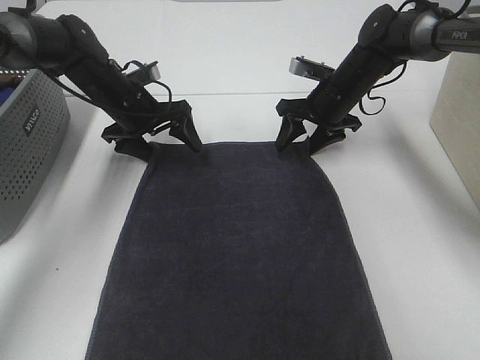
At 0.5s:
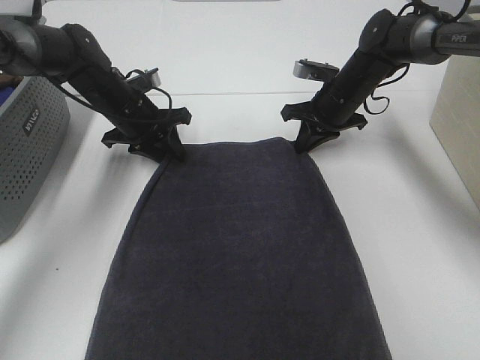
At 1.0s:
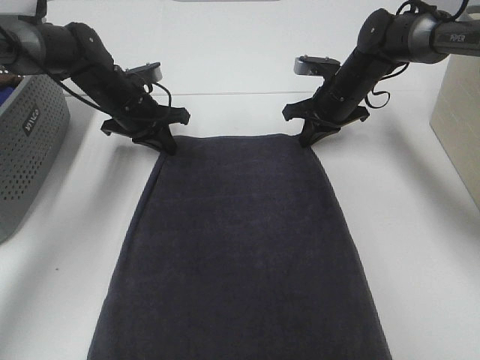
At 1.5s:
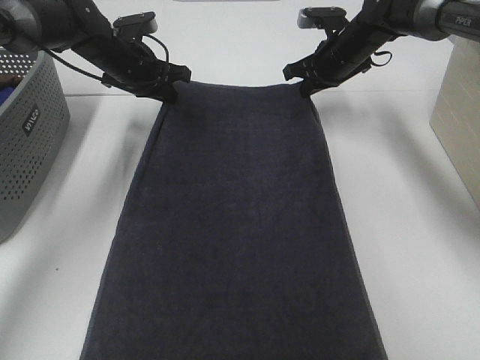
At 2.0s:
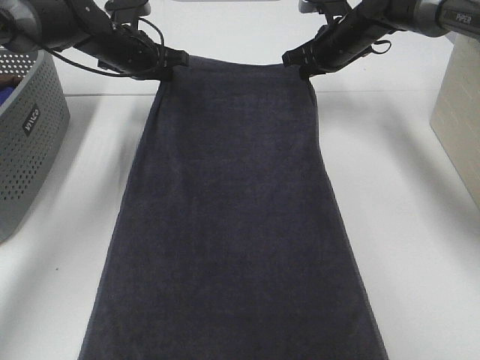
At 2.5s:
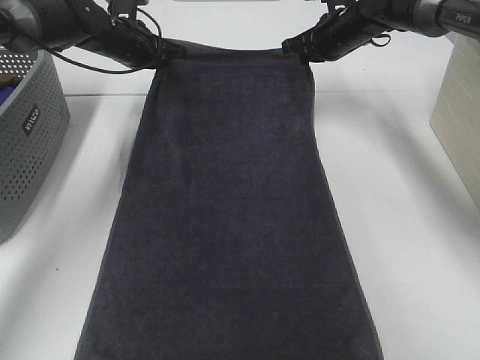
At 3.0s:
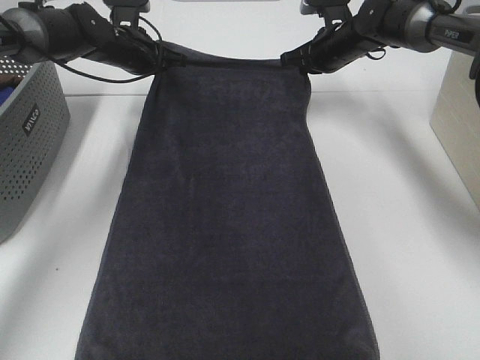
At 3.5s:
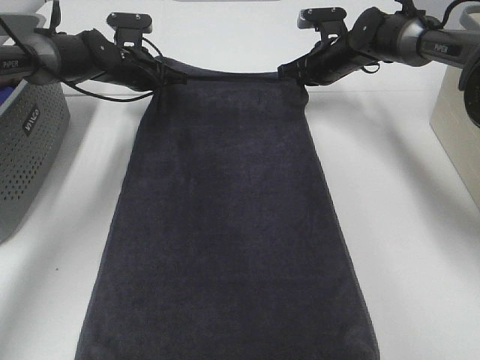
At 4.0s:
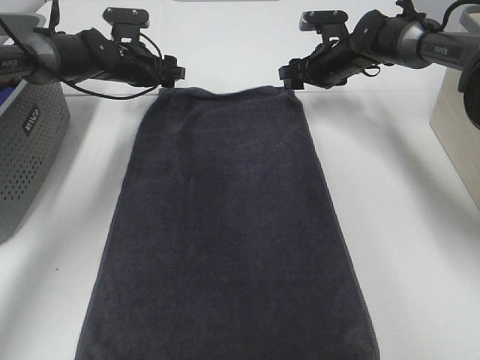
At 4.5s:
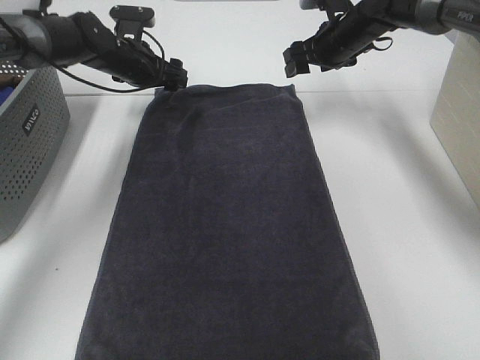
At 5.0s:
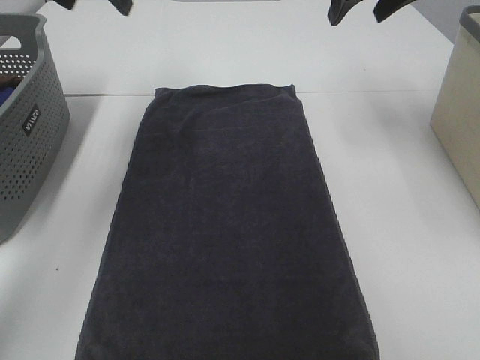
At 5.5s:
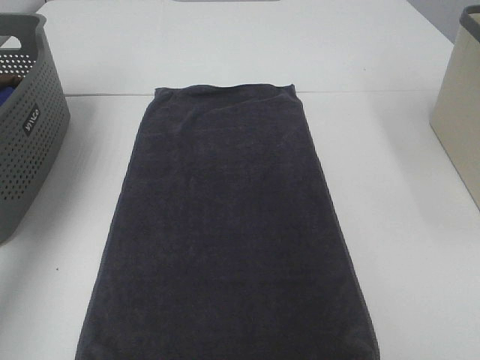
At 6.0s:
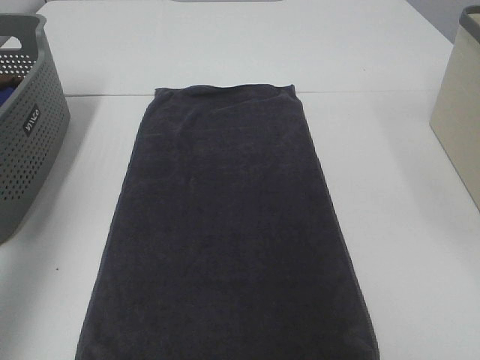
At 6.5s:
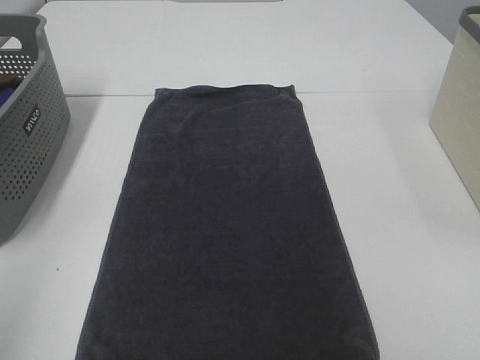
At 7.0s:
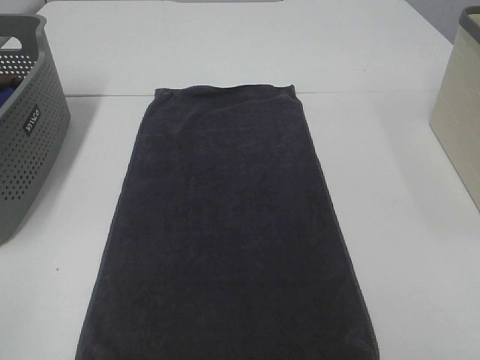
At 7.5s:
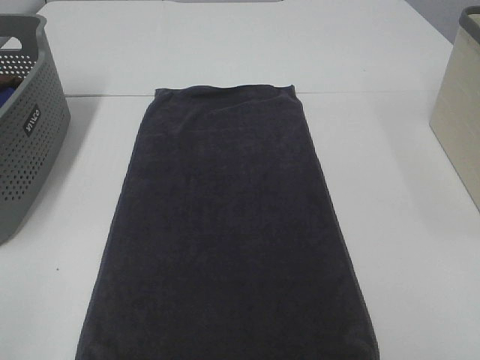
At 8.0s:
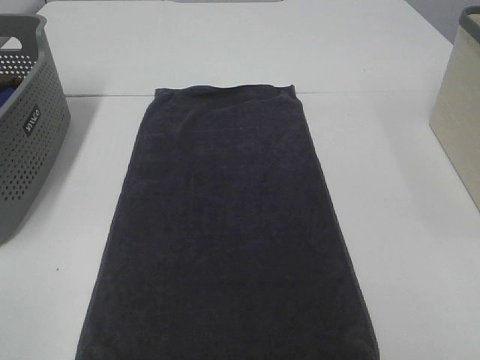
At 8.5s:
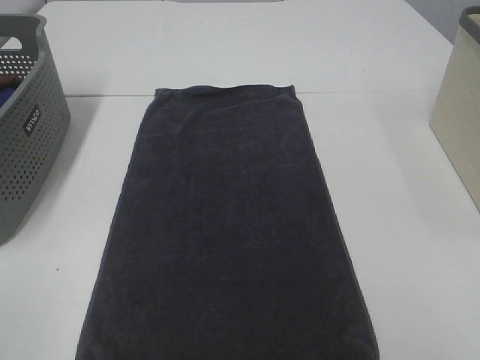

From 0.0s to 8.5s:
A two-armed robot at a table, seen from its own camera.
Task of the whole recording: Remove the towel and place it.
From 0.0s to 2.0s: The right gripper goes about 10 cm upward and forward, and closes up. Meanwhile the left gripper moves forward and upward, roughly 10 cm, and closes.
From 2.0s to 4.0s: The right gripper opens its fingers, while the left gripper opens its fingers.
From 4.0s to 6.5s: The two grippers go roughly 60 cm backward and upward.

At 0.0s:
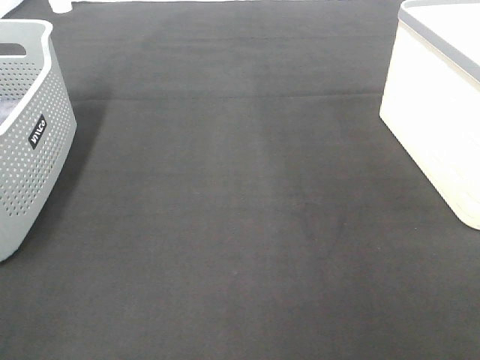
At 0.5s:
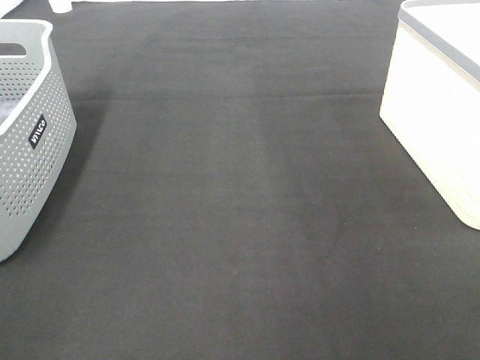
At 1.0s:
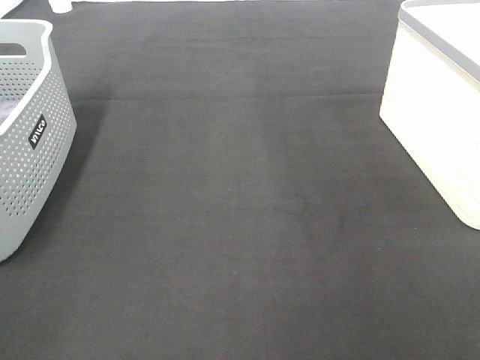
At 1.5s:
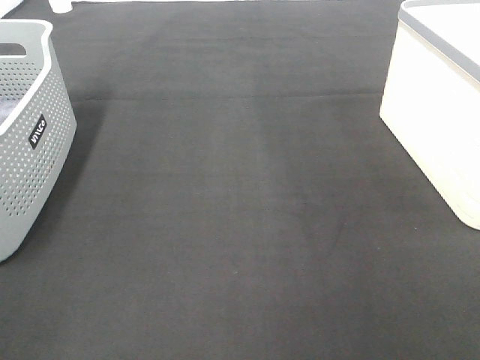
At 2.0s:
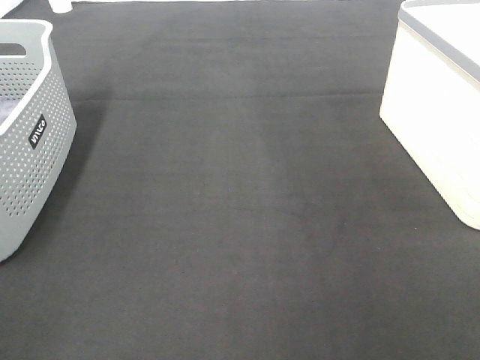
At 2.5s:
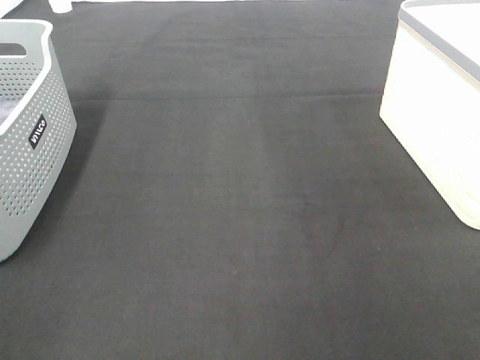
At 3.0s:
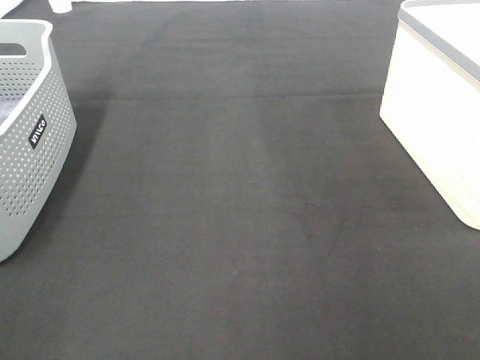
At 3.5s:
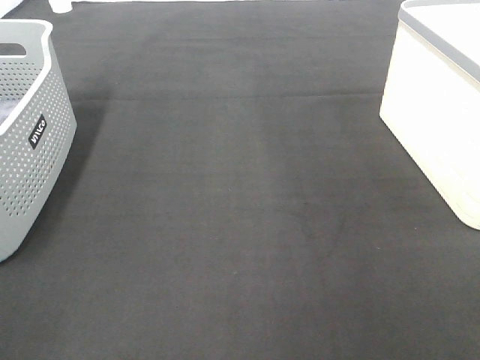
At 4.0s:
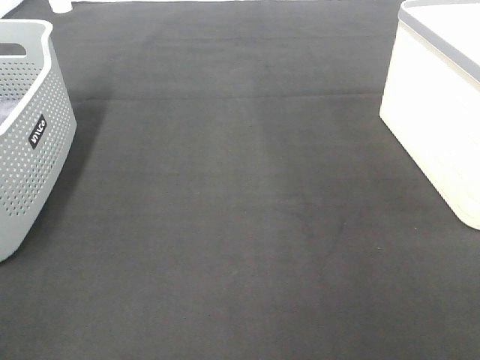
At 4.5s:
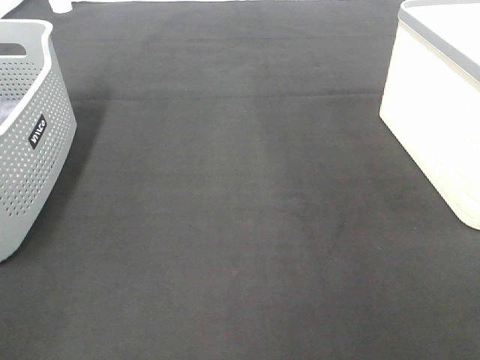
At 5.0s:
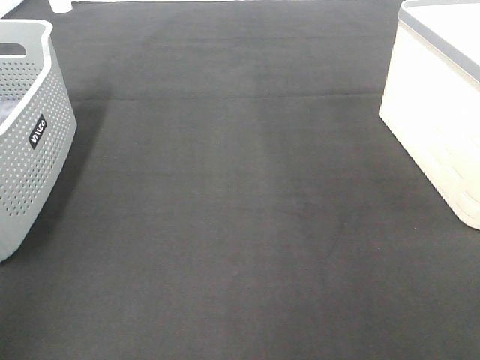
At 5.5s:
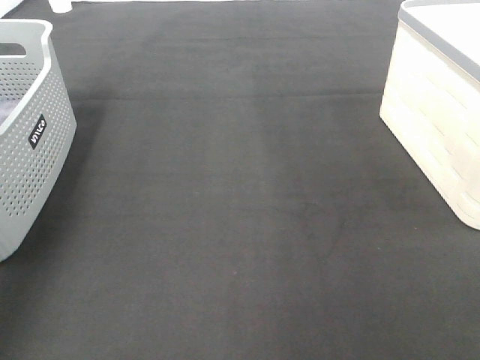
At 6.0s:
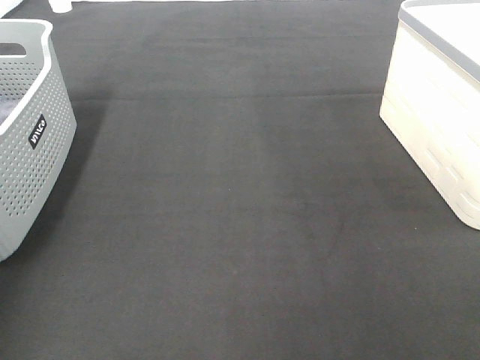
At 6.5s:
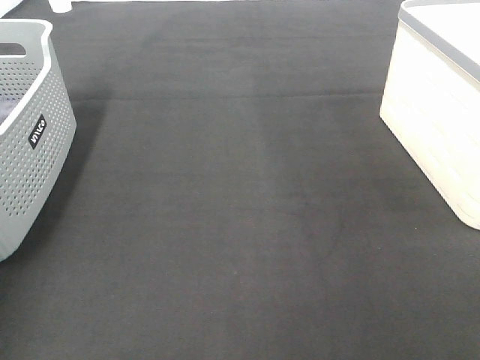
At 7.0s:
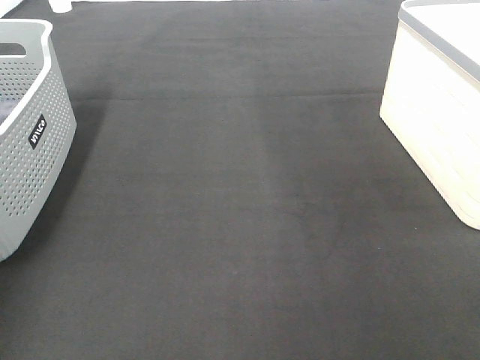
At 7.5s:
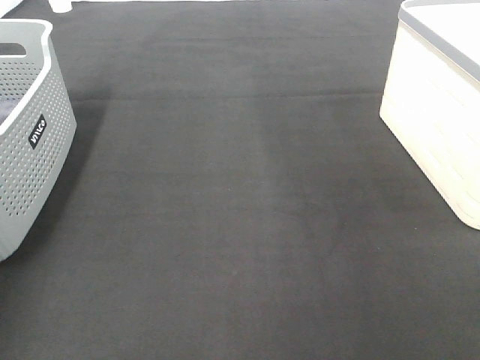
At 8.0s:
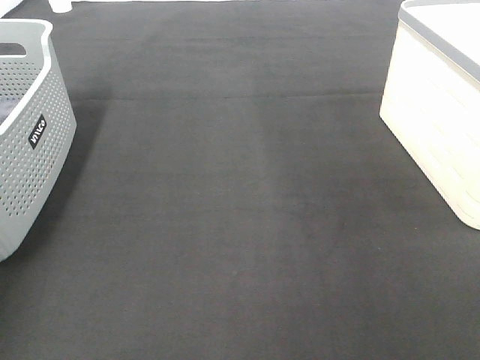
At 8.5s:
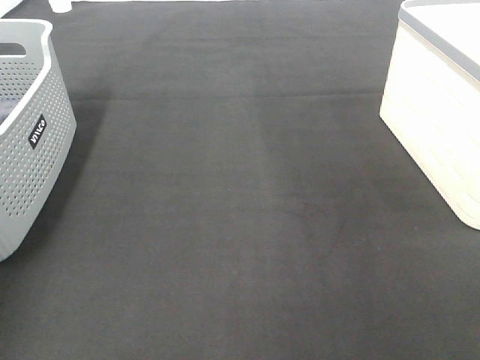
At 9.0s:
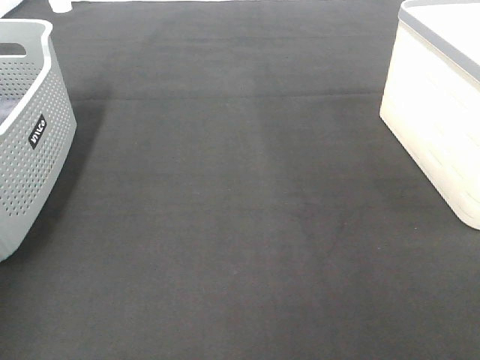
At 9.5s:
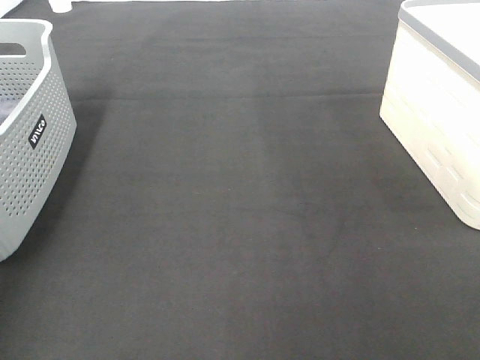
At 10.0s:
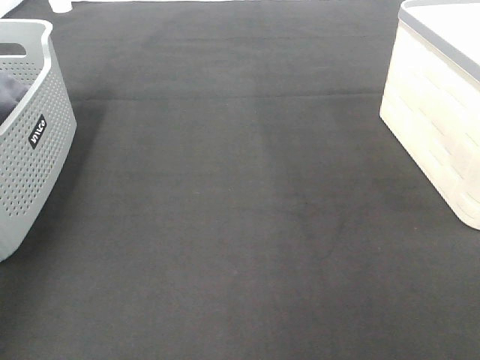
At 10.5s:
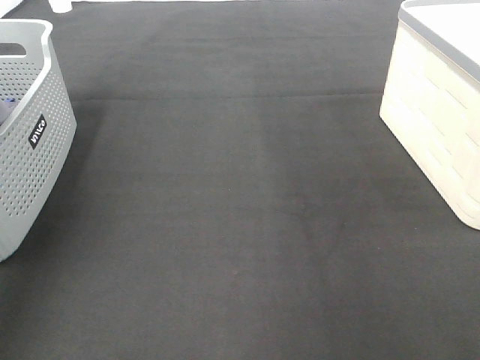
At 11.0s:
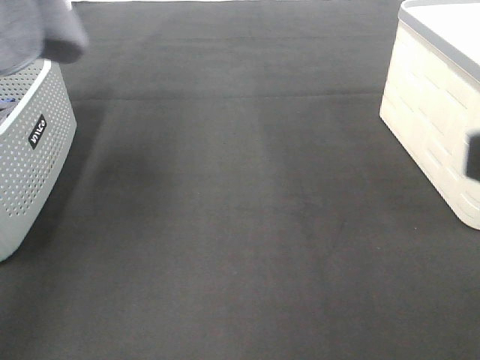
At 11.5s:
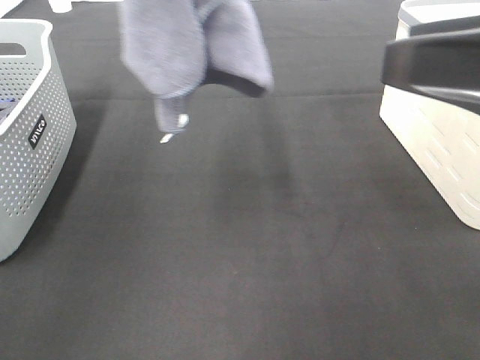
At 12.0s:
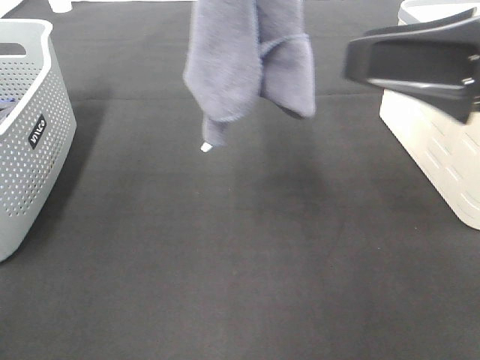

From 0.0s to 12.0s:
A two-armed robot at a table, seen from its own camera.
Task of the whole recording: Remove the towel and place it.
From 0.0s to 4.0s: Both grippers stay about where they are.
From 10.0s to 12.0s: The right gripper is displaced forward and to the left by roughly 20 cm, while the left gripper is displaced to the right by some 25 cm.

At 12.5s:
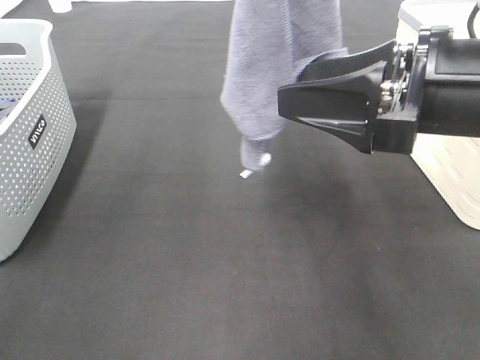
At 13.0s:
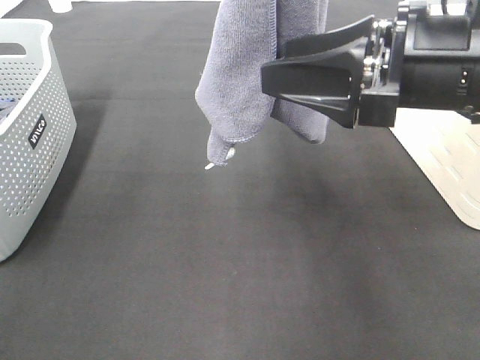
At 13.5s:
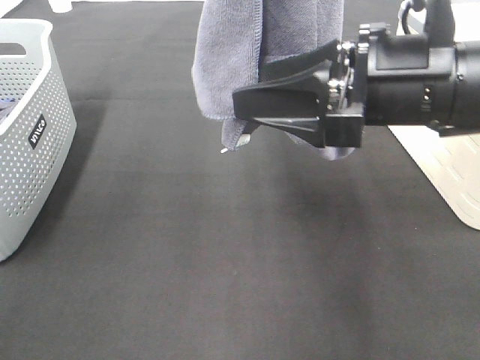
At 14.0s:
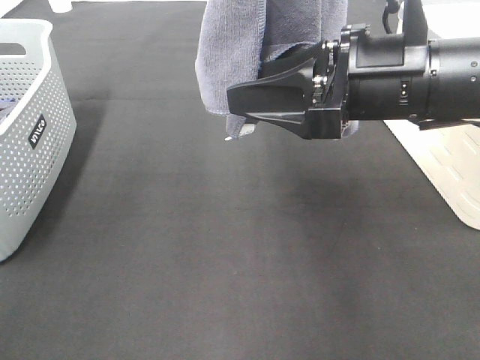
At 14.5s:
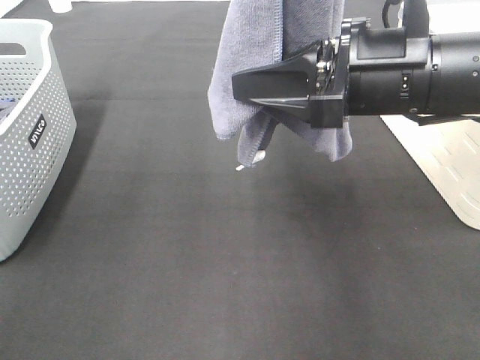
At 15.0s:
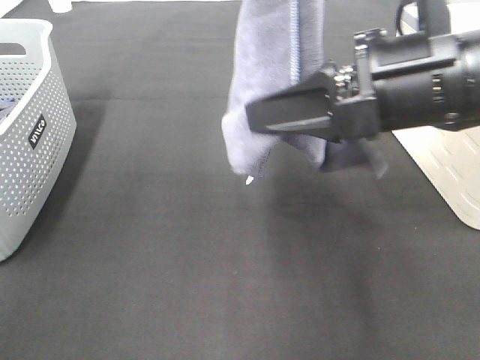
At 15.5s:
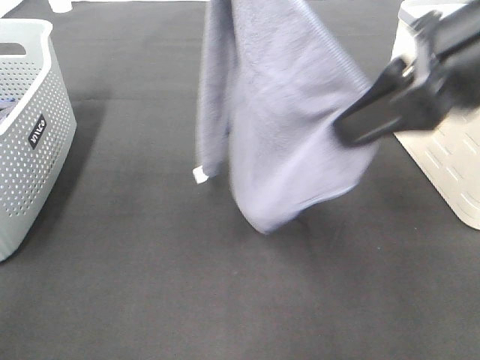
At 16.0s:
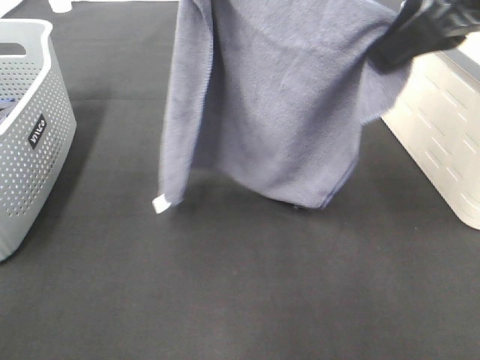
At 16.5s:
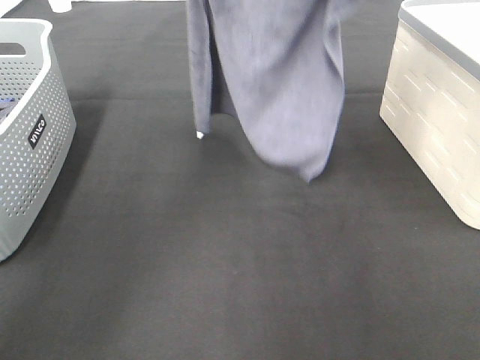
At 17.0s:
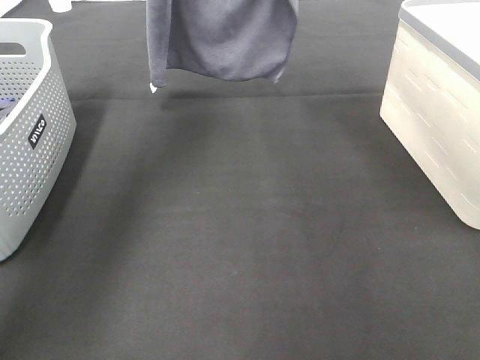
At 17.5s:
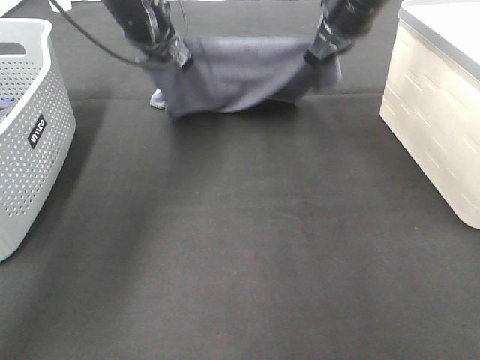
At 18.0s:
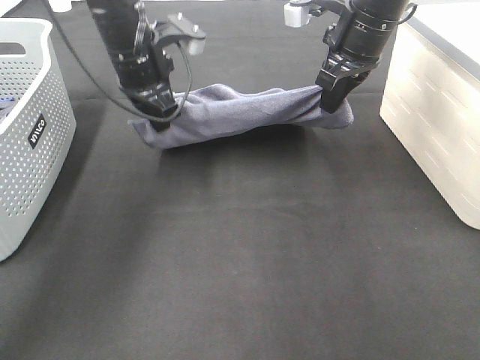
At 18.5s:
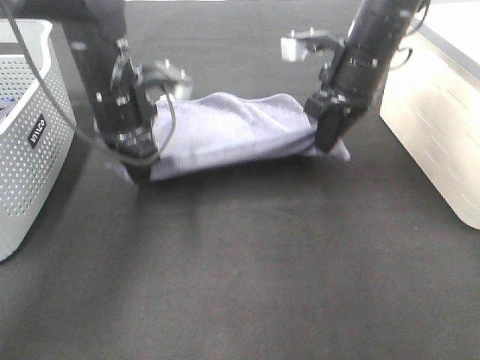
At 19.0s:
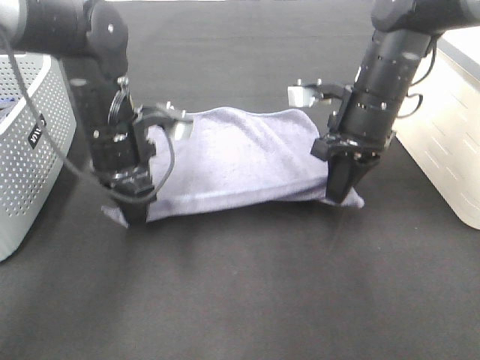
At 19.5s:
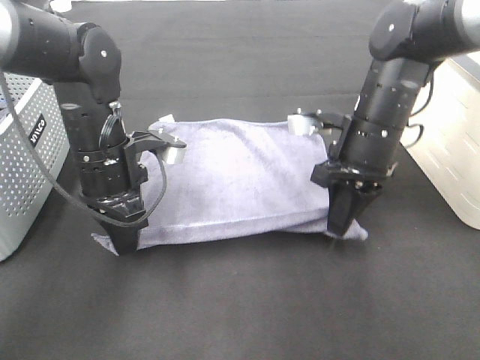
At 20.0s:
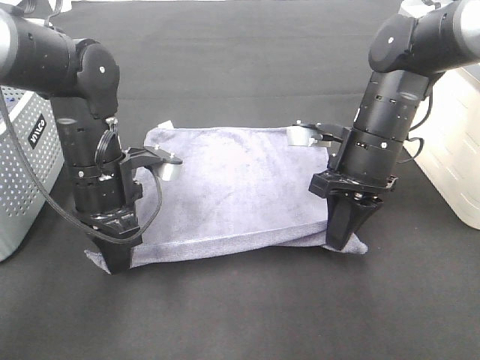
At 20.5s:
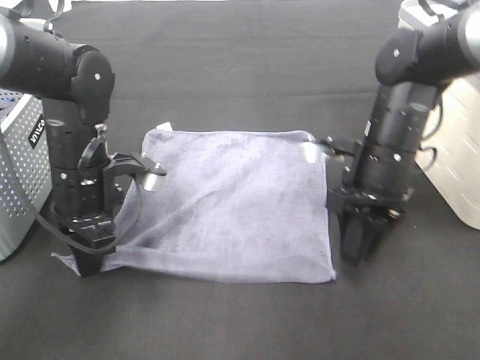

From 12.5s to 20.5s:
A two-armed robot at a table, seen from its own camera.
Task of the whole recording: Remove the towel and place it.
Step, from 13.5s to 16.0s: Right hand: spread the grey towel flat on the table.
Step, from 13.5s to 17.0s: Left hand: spread the grey towel flat on the table.
From 12.5s to 14.5s: The right gripper changes place by some 5 cm, and closes up.
From 14.5s to 16.5s: The left gripper travels forward, downward and to the left by some 20 cm. The right gripper goes about 20 cm forward and upward.
From 16.5s to 18.5s: The grippers both shift downward by about 20 cm.
From 18.5s to 20.5s: The left gripper travels backward by roughly 5 cm. The right gripper is displaced backward and downward by some 10 cm, and opens its fingers.
